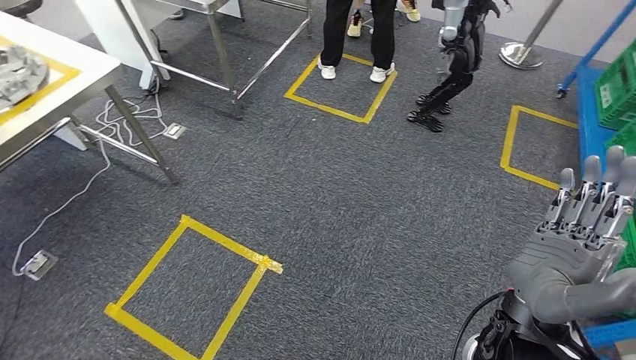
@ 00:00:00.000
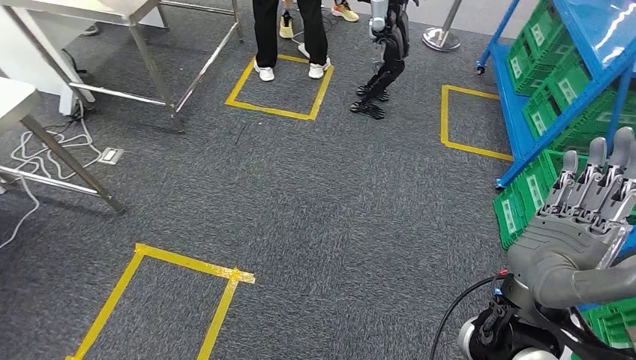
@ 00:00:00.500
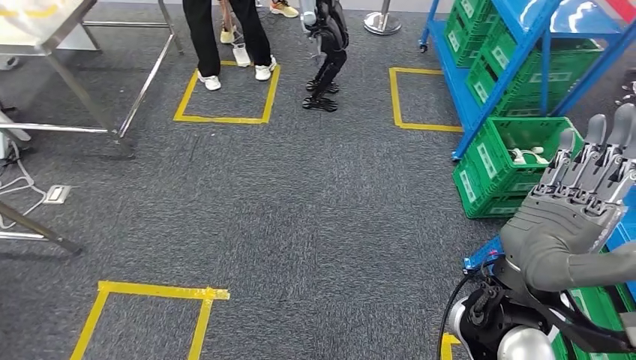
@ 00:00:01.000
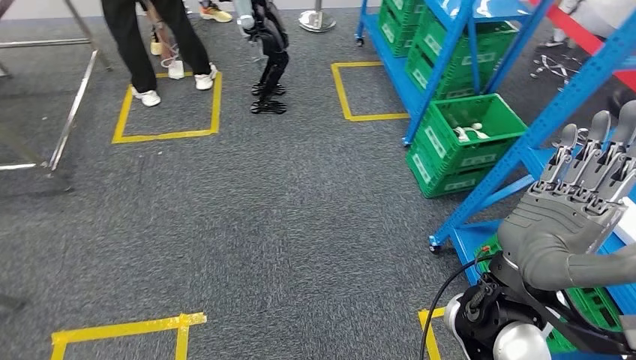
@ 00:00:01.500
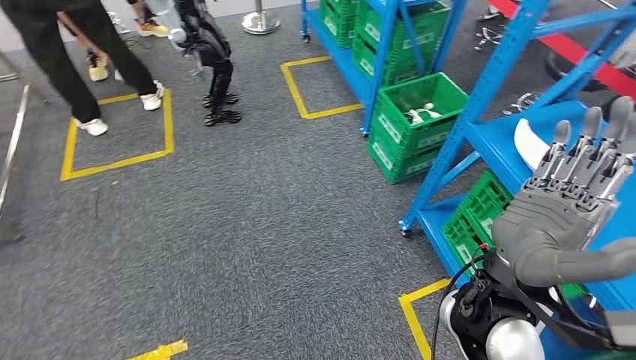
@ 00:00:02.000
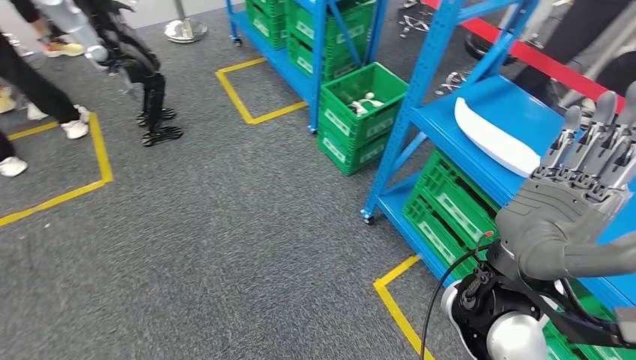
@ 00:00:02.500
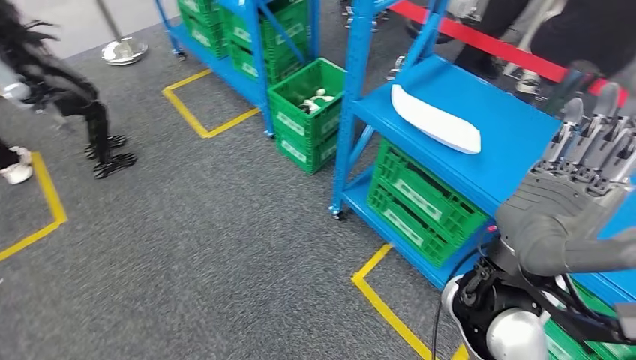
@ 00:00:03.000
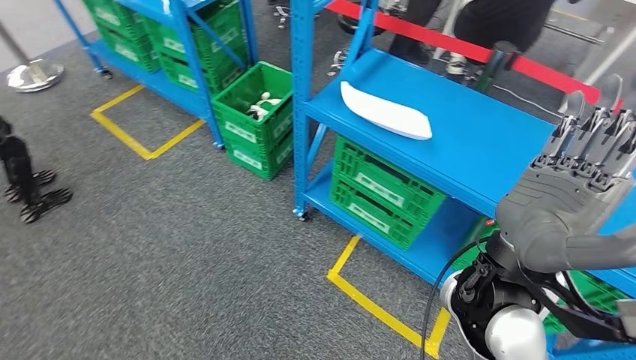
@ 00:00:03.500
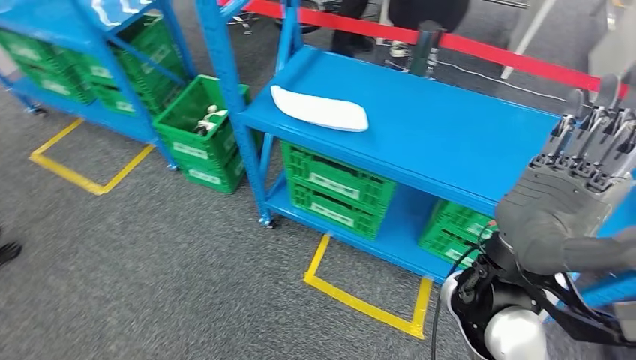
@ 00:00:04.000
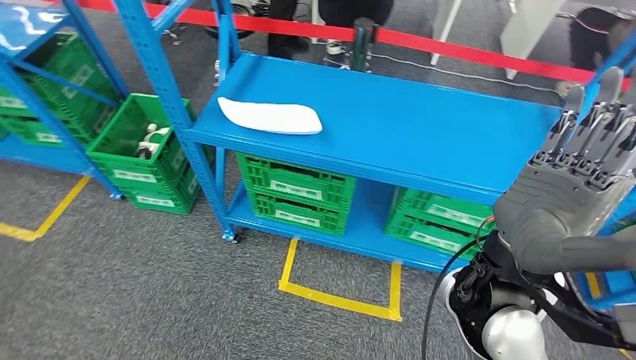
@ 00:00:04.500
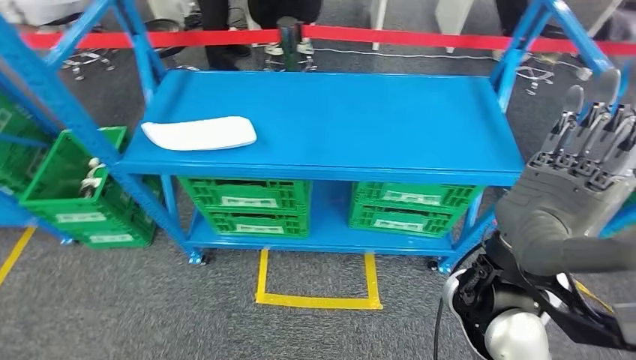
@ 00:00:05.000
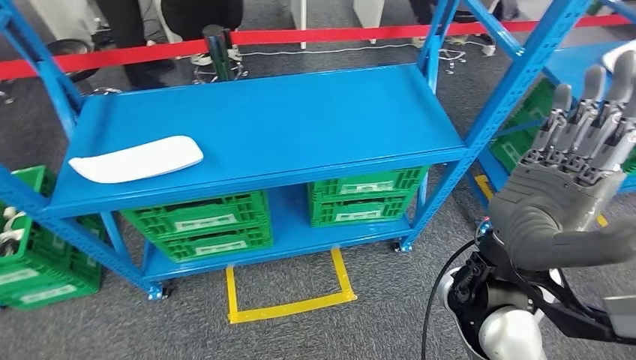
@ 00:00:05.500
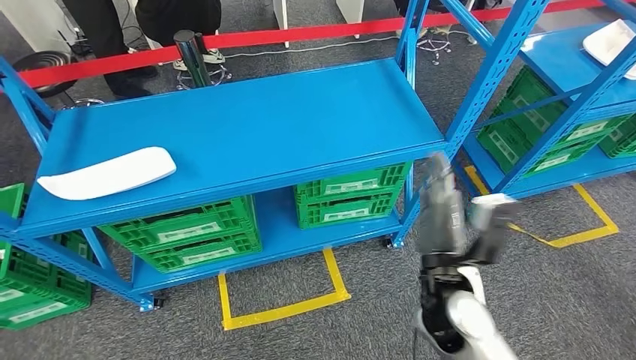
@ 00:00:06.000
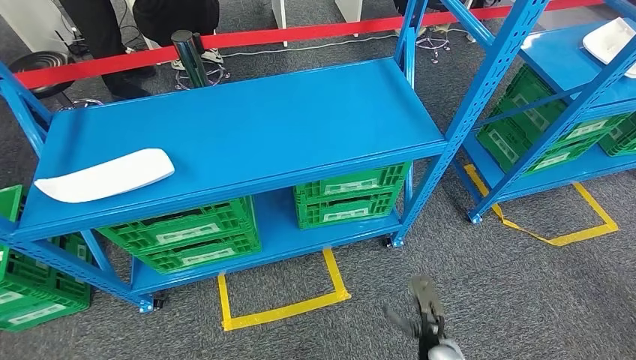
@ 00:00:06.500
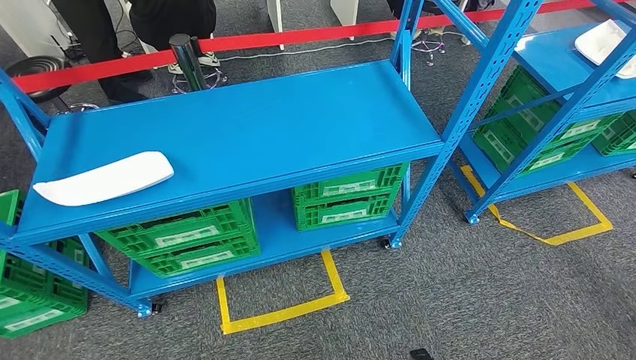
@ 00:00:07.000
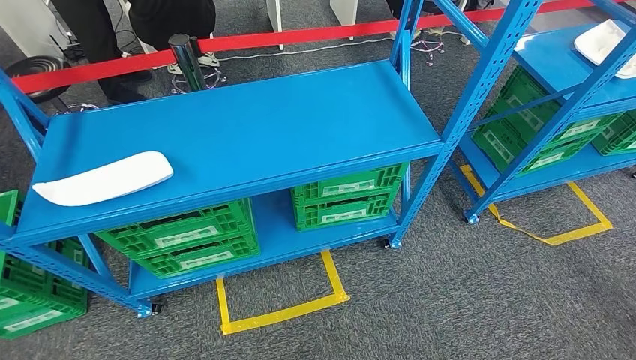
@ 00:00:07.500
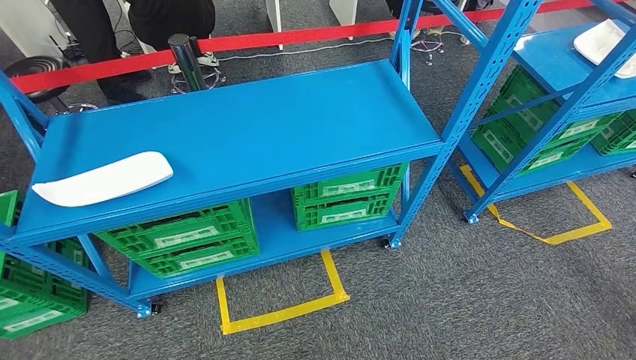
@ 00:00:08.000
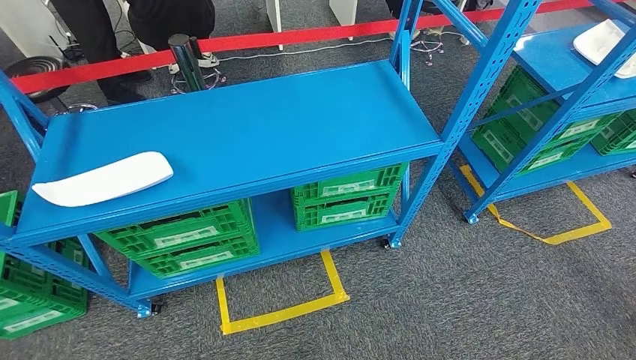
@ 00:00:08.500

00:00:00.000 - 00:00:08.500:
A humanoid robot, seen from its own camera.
Step, 00:00:00.000 - 00:00:08.500: Return to the initial position at the workbench.
00:00:06.500 - 00:00:08.500: The right hand moves backward, some 20 cm, while the left hand goes approximately 5 cm backward.

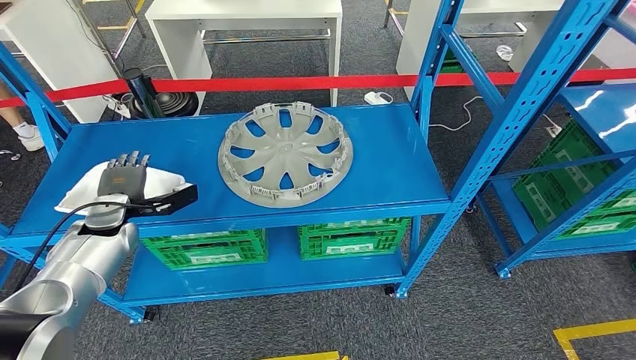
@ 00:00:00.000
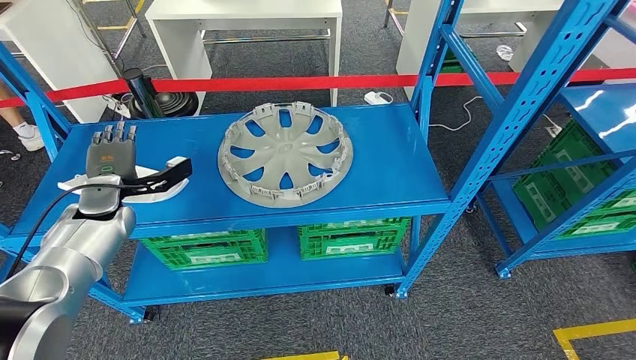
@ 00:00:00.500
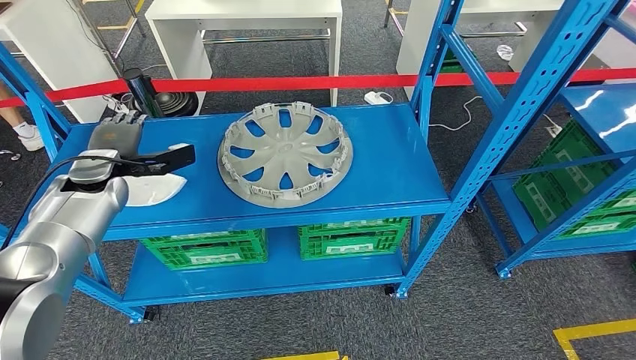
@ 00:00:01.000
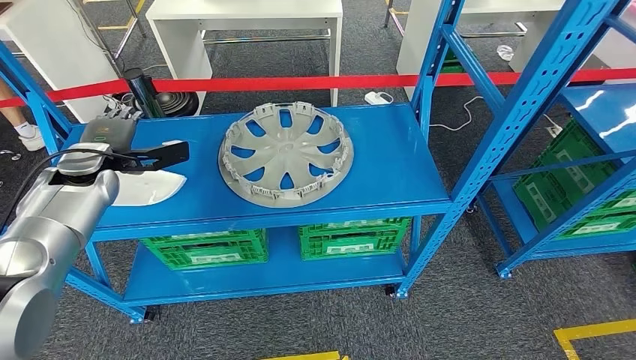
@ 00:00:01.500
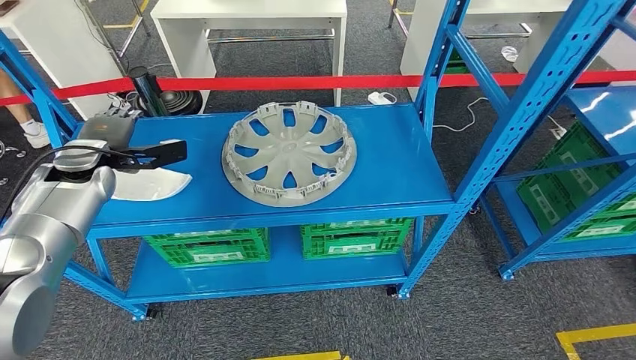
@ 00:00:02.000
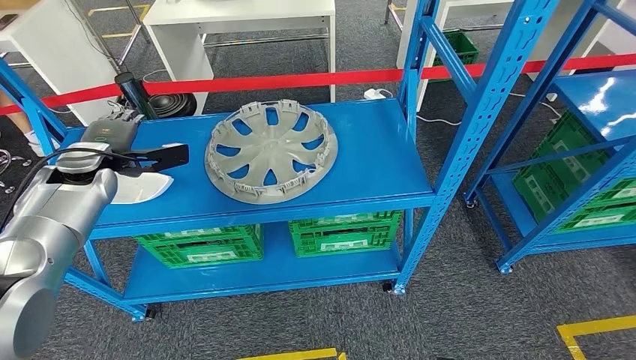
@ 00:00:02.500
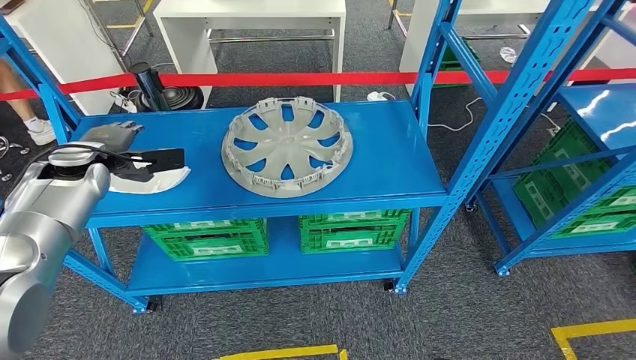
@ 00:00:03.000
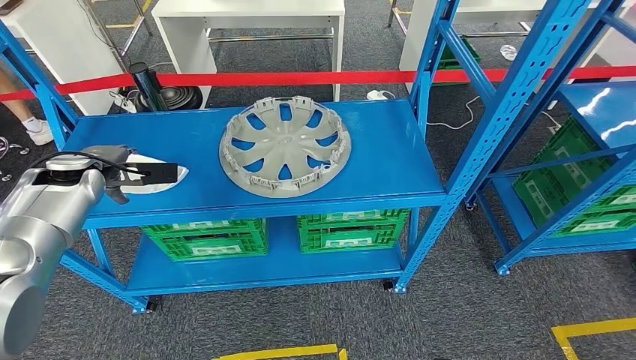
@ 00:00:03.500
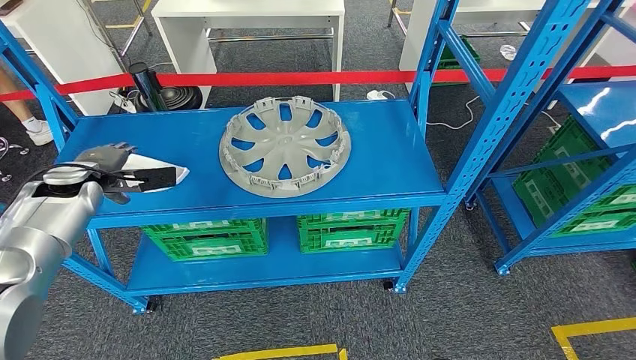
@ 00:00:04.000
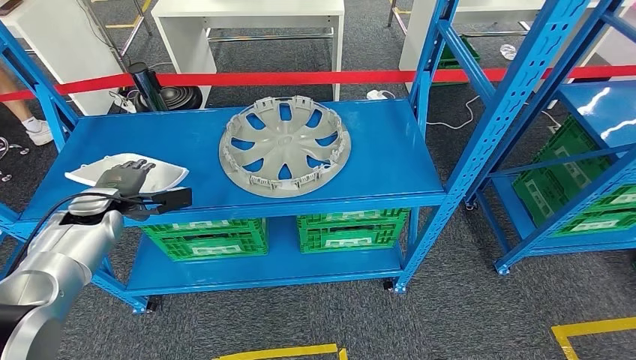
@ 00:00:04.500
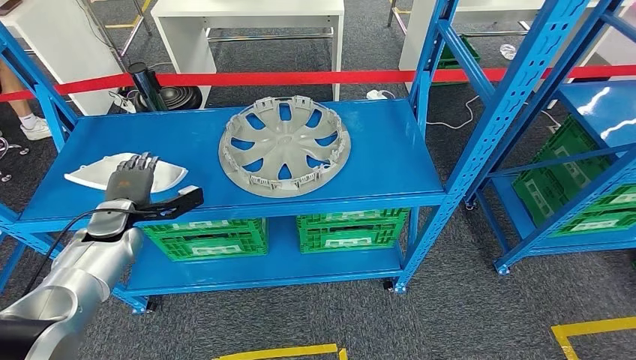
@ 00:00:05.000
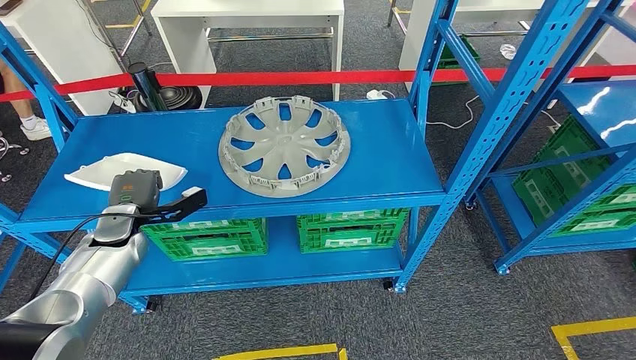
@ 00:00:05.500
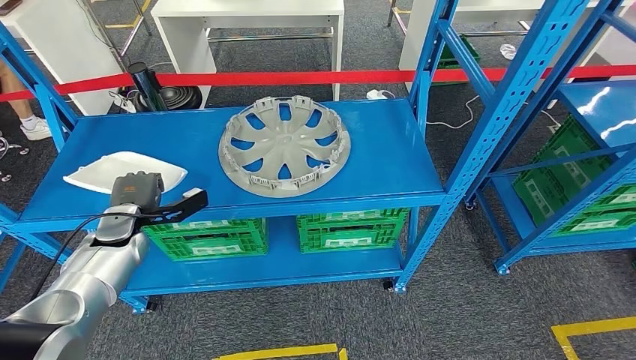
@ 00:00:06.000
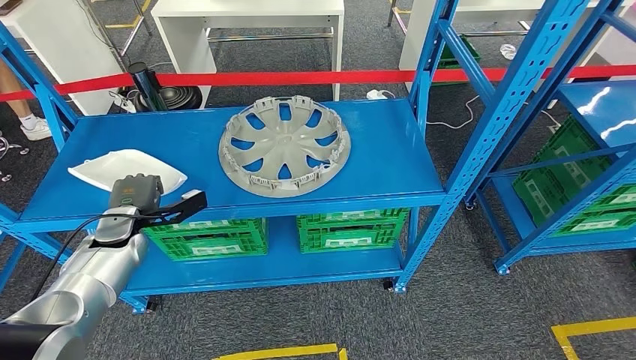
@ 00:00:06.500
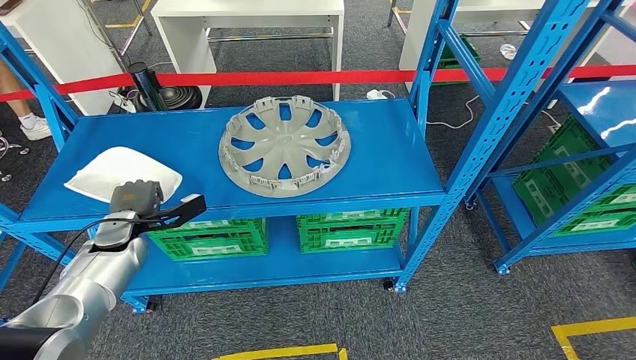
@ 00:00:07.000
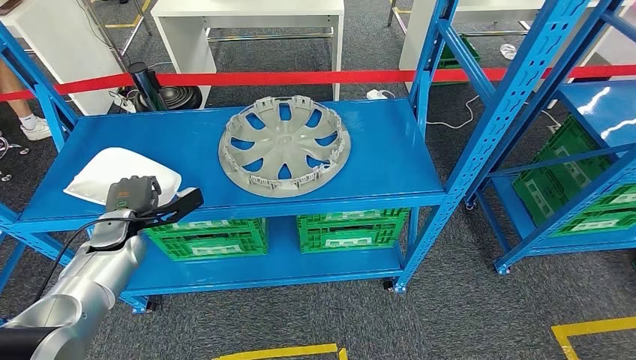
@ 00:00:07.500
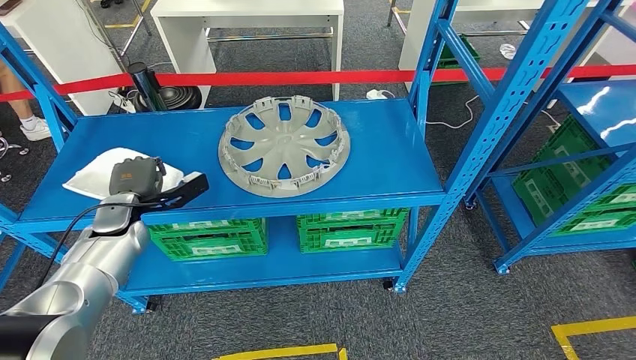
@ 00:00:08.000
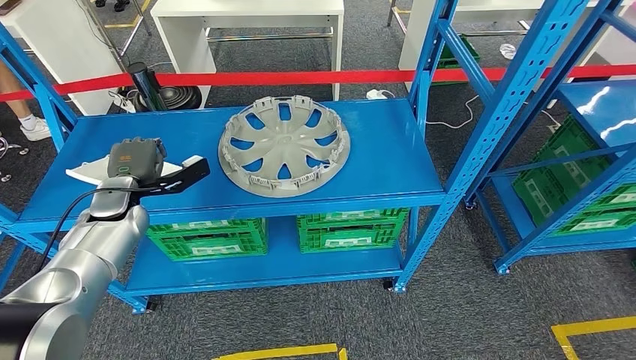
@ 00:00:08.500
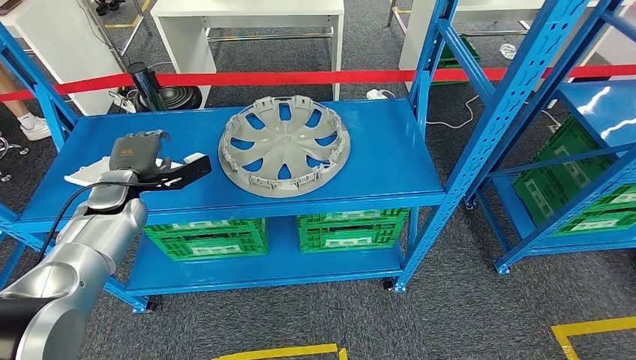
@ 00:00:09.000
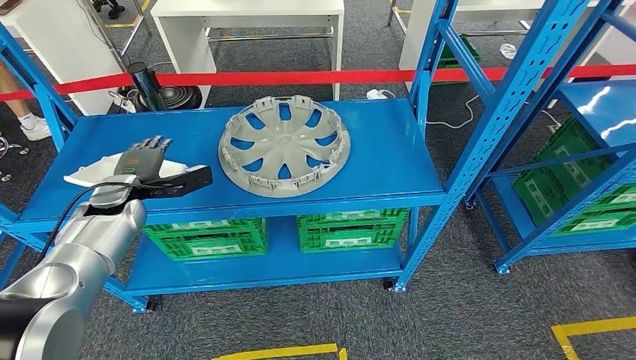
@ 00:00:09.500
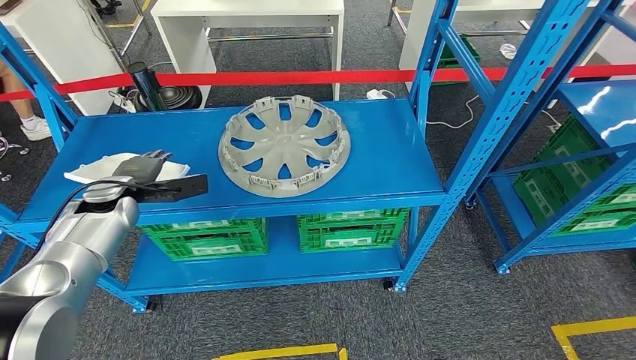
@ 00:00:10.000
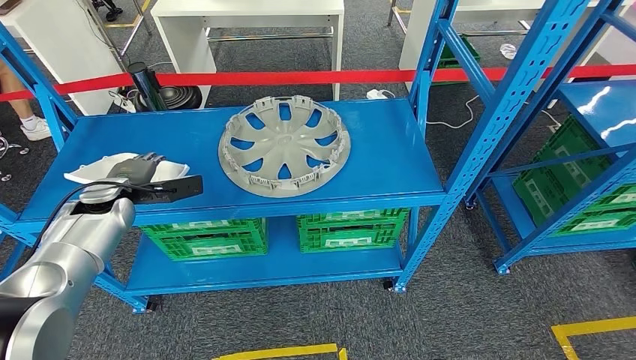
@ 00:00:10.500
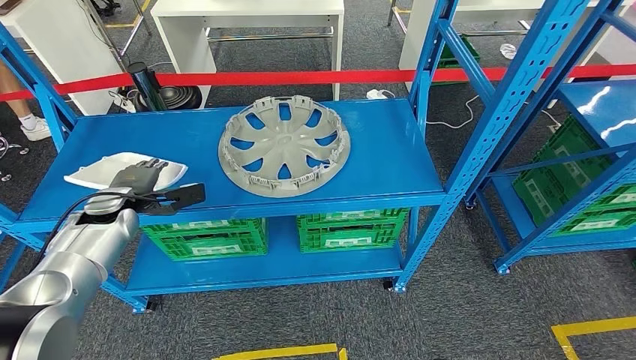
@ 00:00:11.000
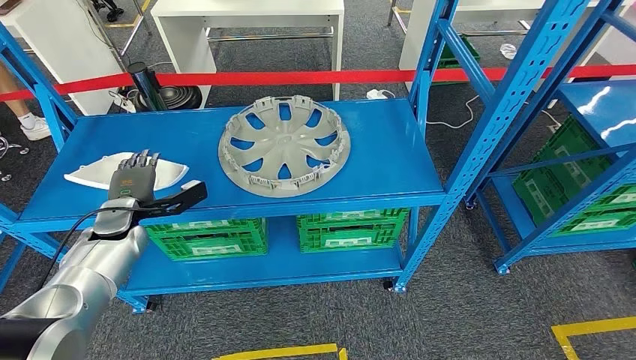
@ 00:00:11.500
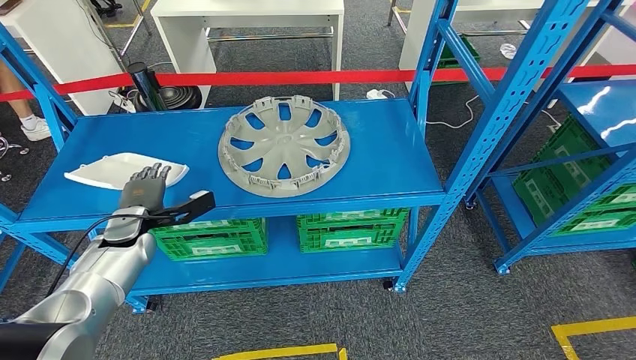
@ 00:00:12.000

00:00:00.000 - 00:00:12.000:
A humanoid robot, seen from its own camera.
00:00:04.000 - 00:00:06.000: The left hand shifts approximately 10 cm downward and to the right.
00:00:06.000 - 00:00:08.000: The hands move only a little.
00:00:10.000 - 00:00:12.000: The left hand goes about 5 cm downward.
